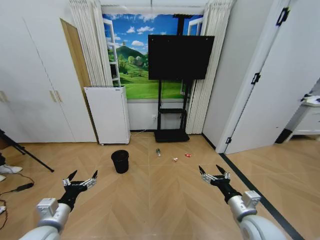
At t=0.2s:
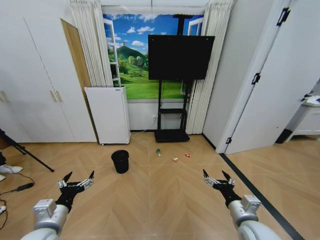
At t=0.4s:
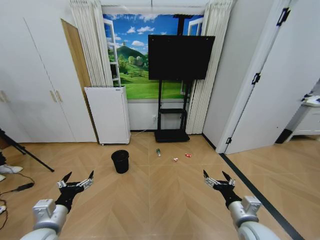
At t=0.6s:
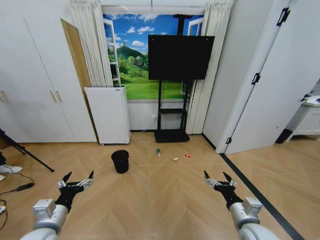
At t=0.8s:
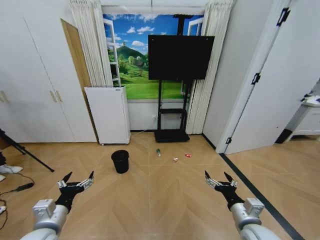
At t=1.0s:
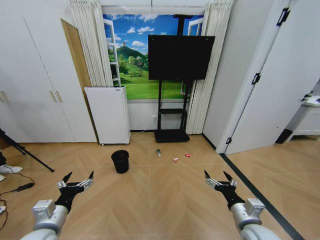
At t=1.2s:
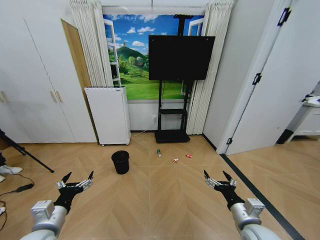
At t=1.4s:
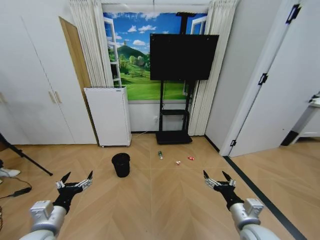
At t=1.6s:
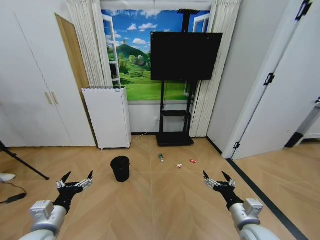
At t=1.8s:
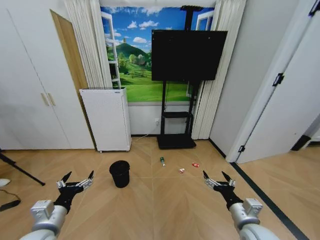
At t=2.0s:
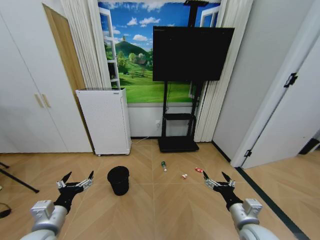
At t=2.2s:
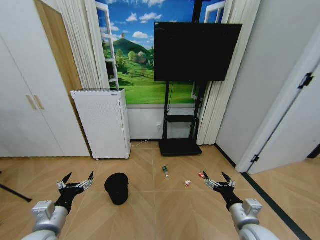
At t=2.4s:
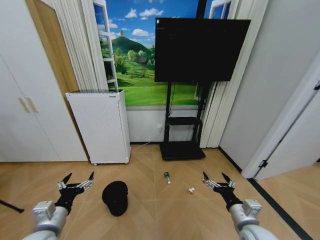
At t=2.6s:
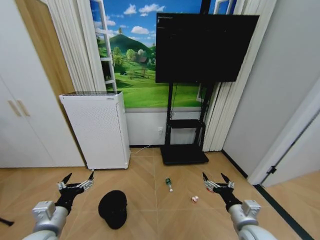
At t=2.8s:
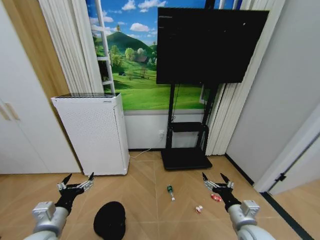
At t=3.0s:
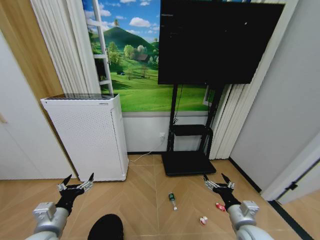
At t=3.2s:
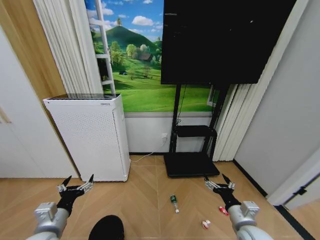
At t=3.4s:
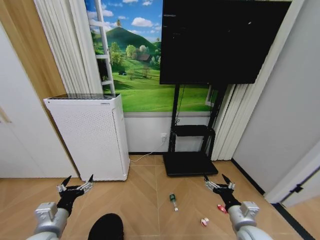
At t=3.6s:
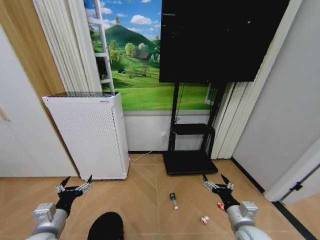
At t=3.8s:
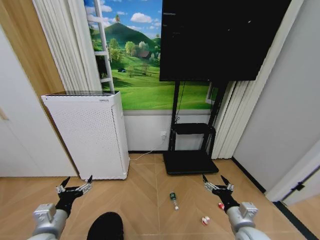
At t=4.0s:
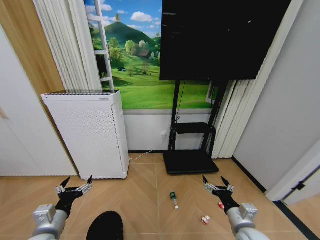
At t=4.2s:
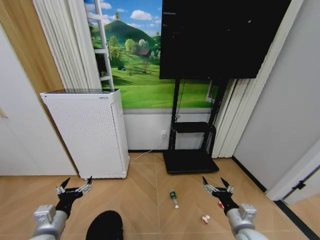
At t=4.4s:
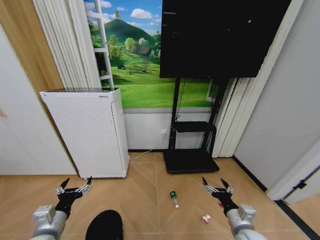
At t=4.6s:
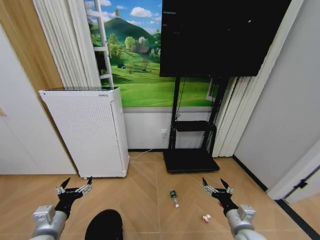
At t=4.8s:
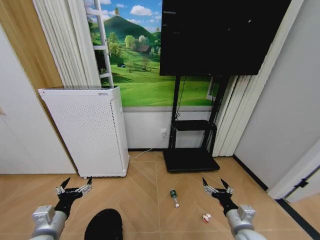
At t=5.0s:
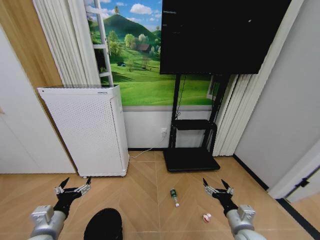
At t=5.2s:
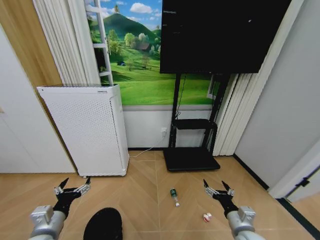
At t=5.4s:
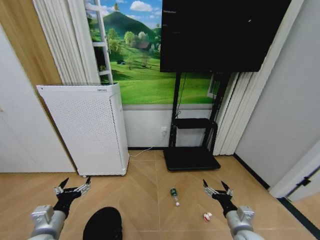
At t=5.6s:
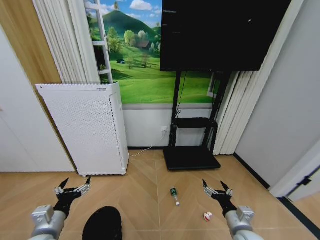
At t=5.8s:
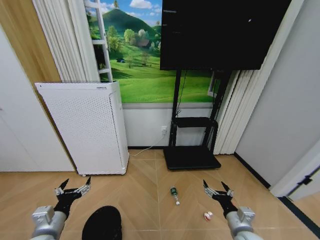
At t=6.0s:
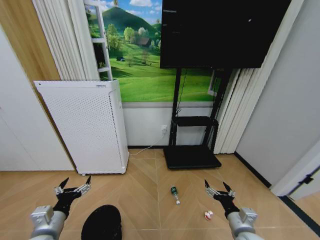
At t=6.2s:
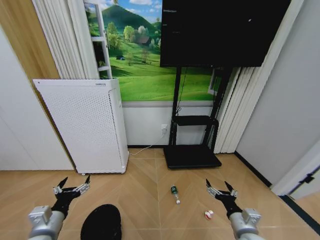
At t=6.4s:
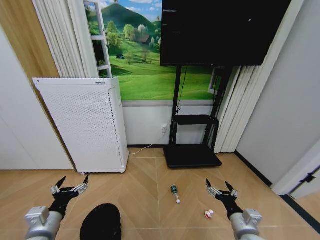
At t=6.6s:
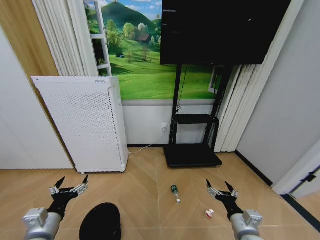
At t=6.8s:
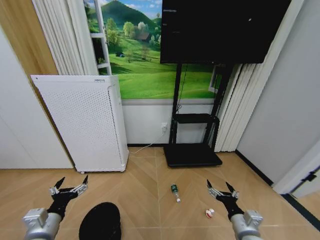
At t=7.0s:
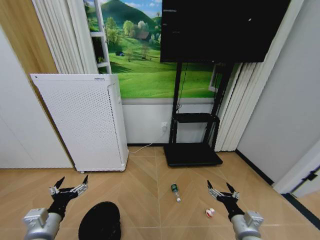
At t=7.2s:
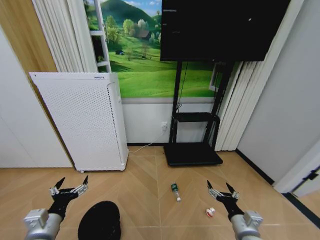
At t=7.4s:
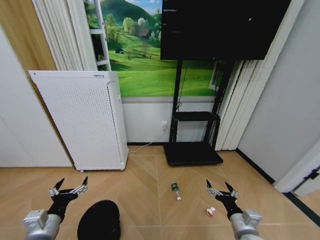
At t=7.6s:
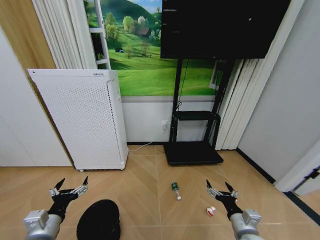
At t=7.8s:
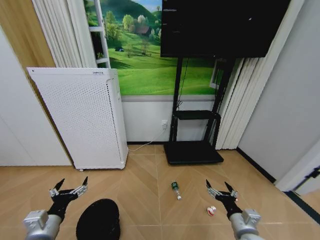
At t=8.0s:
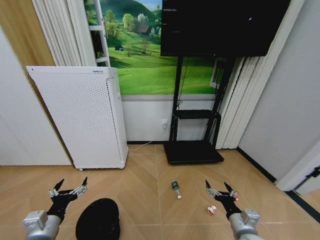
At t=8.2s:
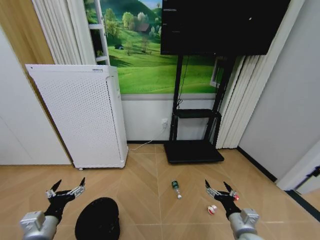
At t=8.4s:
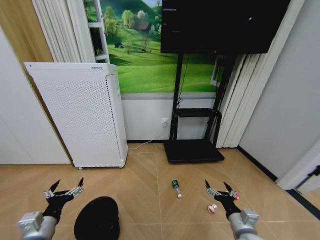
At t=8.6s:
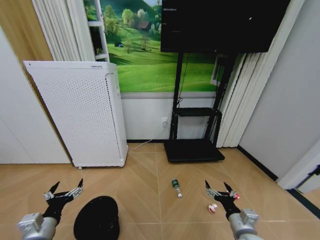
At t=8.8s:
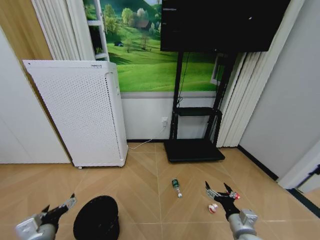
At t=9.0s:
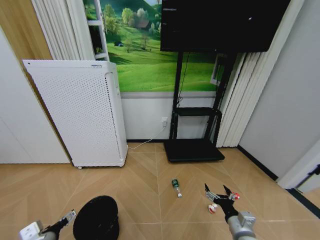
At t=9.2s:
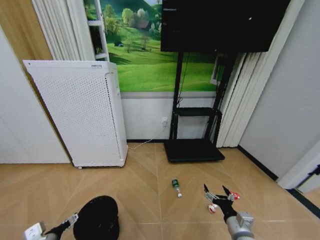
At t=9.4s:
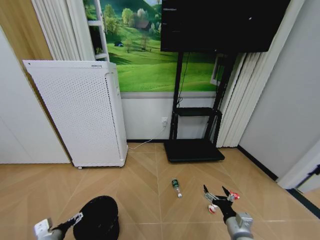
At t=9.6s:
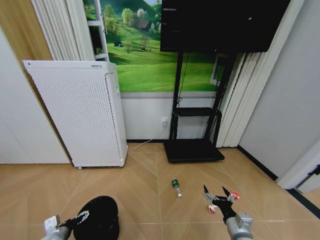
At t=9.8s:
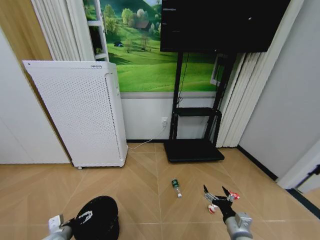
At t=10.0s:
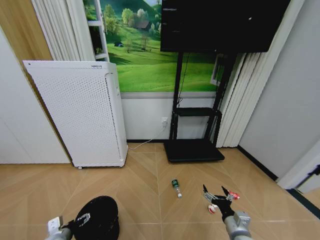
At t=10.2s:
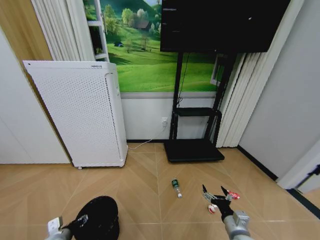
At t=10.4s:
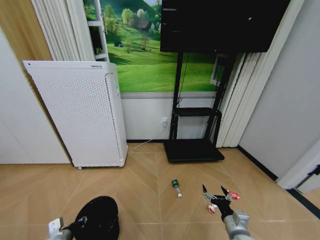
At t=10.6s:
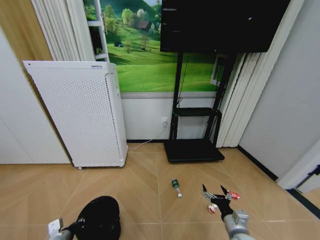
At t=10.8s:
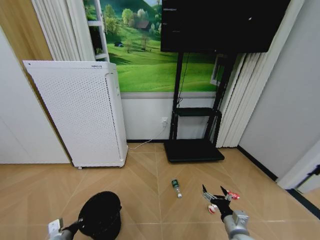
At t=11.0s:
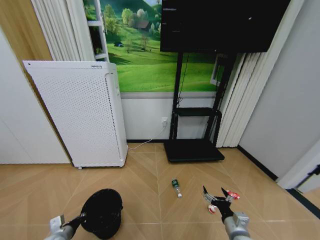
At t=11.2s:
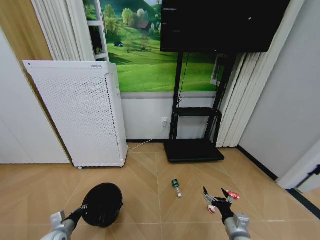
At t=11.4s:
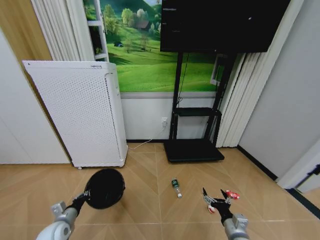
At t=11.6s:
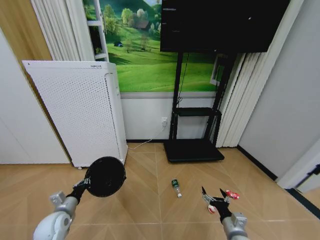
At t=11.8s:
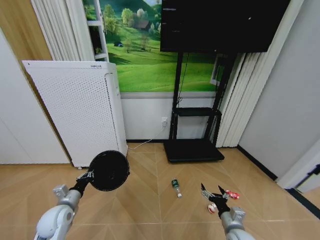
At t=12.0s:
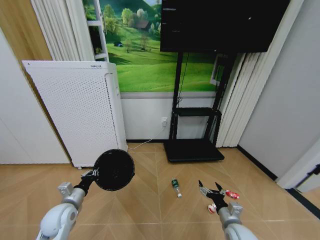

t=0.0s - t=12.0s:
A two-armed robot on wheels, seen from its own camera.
Task of the whole recording: Pick up the trash bin and place the garbage on the floor into it.
t=4.4s - t=7.6s: The grippers move only a little.
t=9.0s - t=10.4s: The left gripper travels downward by roughly 10 cm, and closes its fingers.
t=10.4s - t=12.0s: The left gripper travels upward and forward by some 10 cm, and closes.

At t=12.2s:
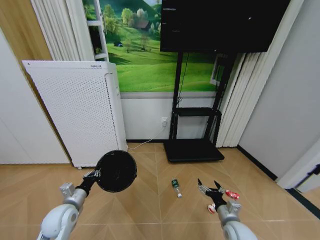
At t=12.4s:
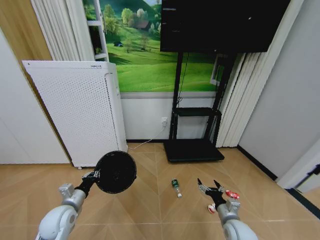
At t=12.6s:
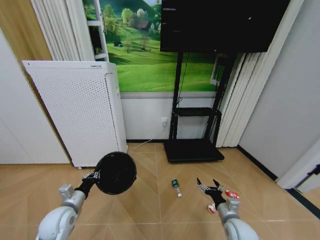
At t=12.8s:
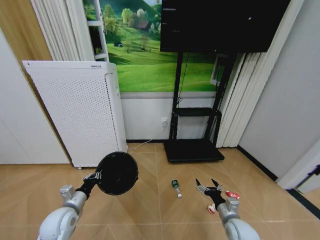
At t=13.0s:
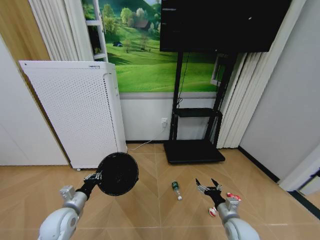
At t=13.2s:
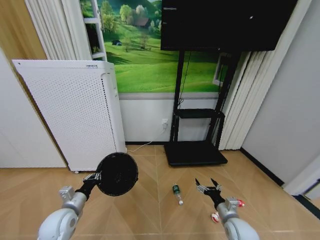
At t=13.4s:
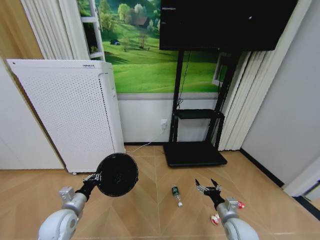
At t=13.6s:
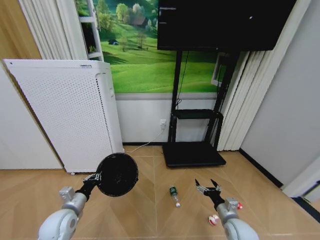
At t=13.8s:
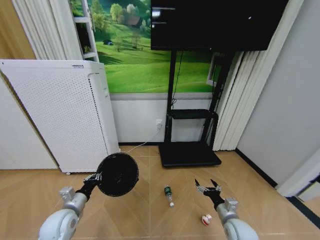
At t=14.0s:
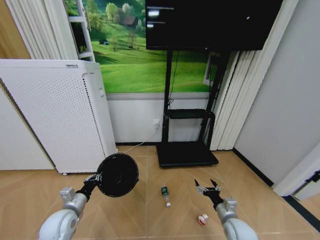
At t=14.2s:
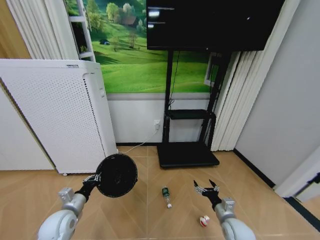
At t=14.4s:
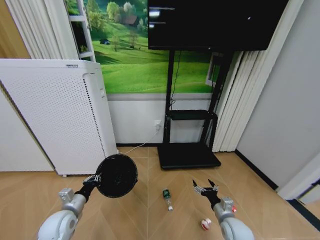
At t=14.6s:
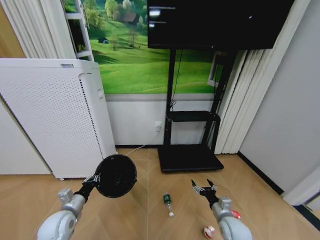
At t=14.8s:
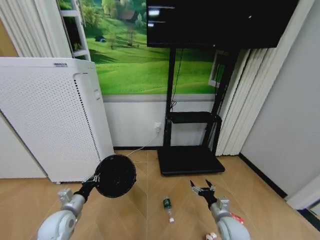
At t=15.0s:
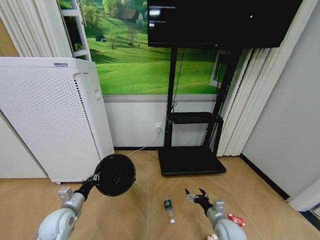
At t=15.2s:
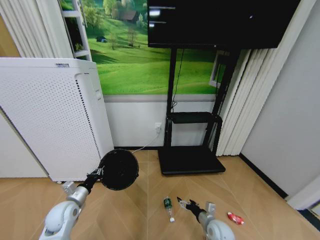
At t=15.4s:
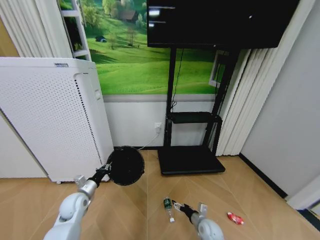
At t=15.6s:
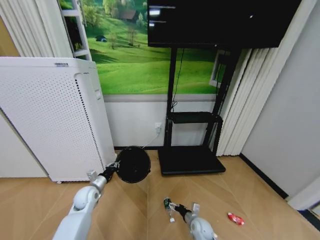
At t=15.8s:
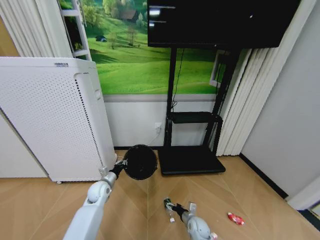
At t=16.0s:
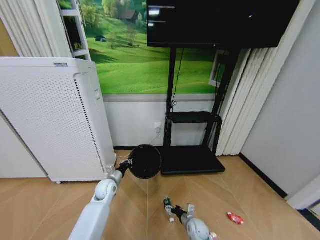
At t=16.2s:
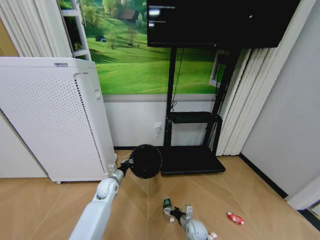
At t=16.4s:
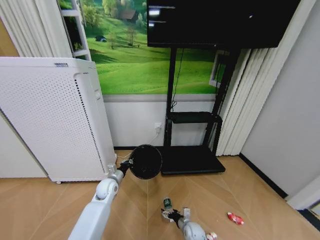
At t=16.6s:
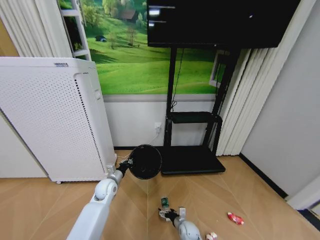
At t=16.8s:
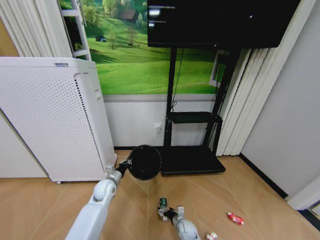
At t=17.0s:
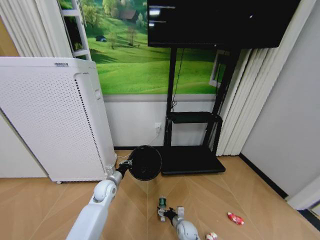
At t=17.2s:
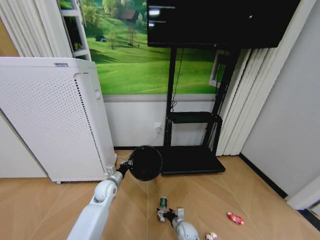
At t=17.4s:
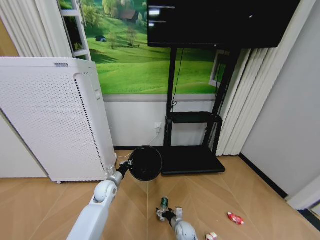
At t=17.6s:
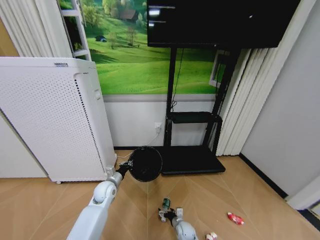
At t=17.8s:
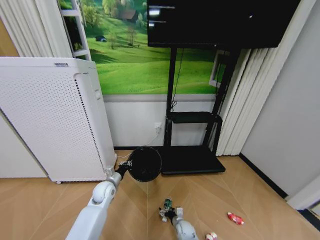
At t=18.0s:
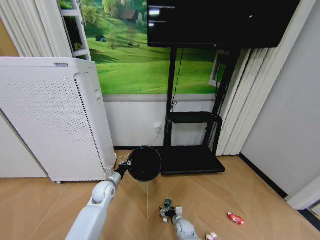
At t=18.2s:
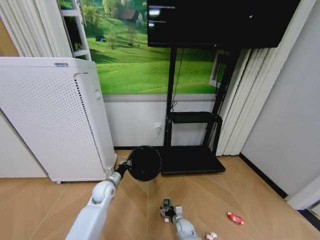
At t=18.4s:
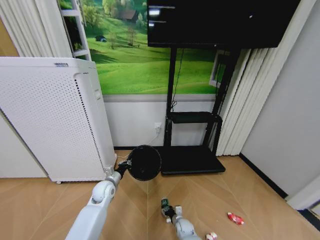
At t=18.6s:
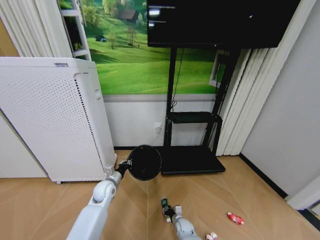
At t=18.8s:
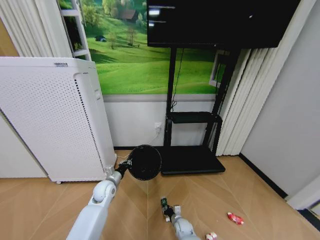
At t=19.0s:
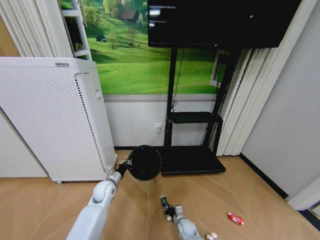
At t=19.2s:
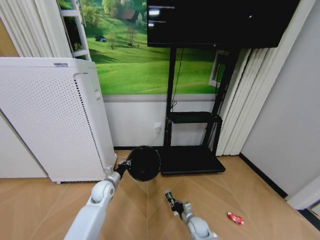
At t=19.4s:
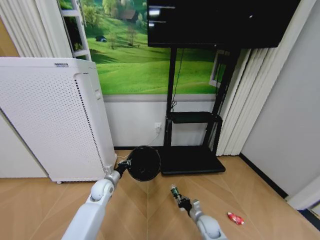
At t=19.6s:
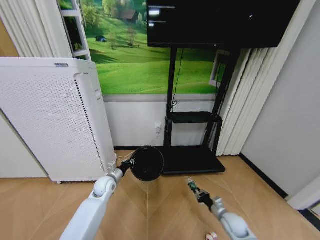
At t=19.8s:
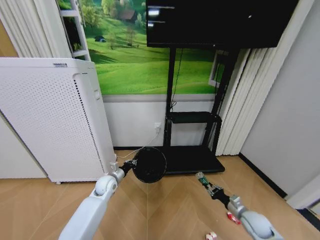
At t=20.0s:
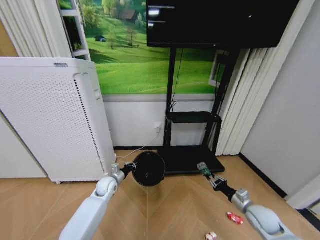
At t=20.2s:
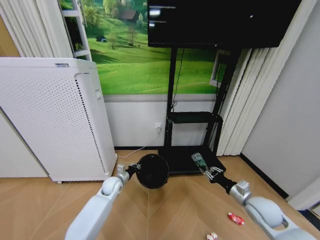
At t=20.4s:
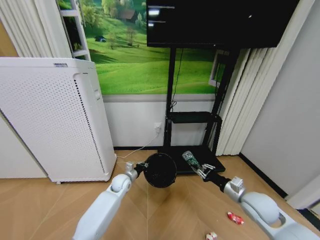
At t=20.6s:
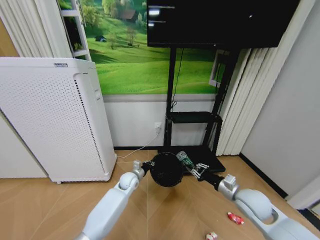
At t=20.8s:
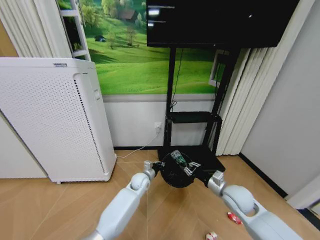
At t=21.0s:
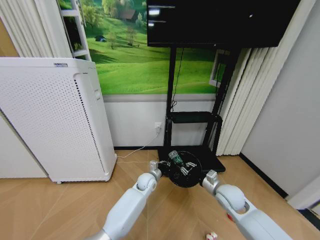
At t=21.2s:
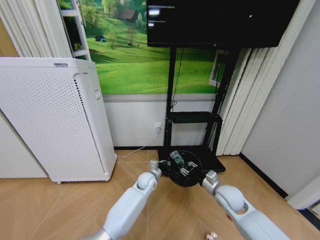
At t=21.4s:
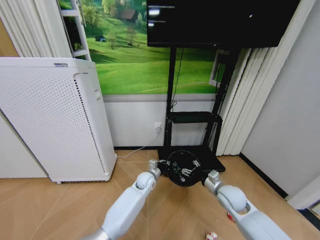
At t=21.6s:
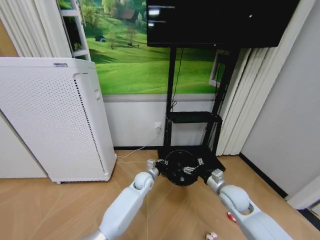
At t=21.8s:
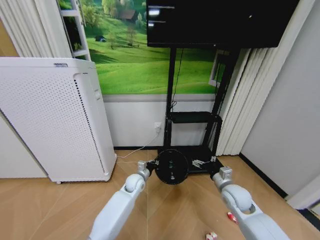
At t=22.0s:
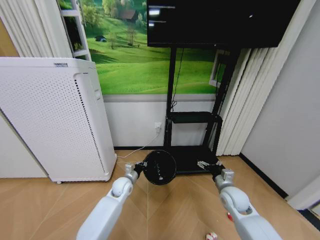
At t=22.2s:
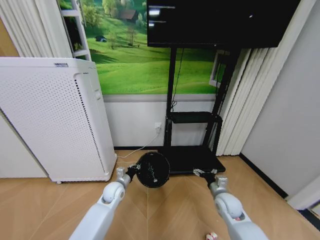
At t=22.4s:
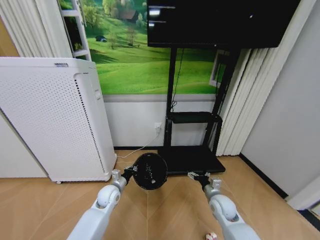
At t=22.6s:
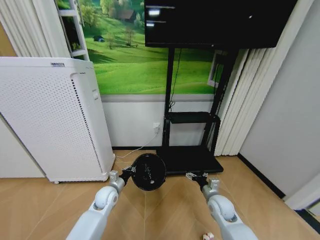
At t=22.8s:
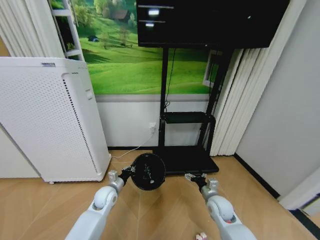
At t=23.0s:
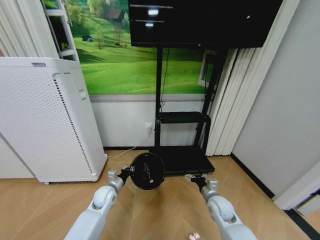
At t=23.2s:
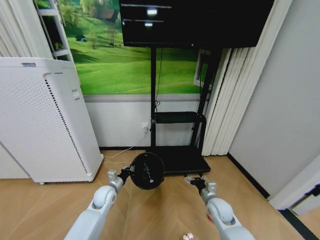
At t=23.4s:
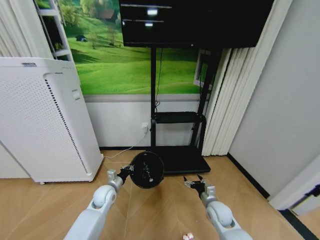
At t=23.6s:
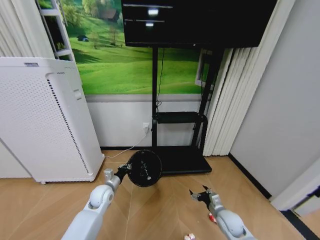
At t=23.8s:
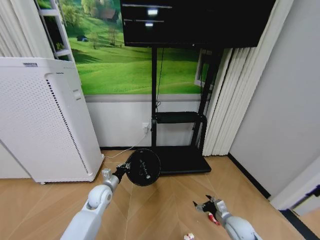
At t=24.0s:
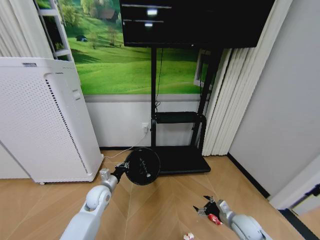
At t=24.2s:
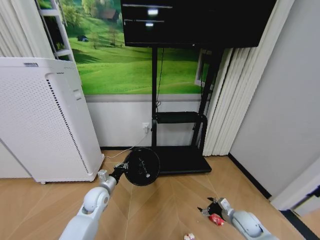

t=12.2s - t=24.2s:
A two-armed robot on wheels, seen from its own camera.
Task of the whole recording: Pick up the trash bin and place the garbage on the floor into it.
t=13.8s - t=15.2s: The right gripper moves downward, some 5 cm.
t=15.2s - t=16.6s: The left gripper goes roughly 15 cm to the right and forward; the right gripper heads downward and to the left, covering approximately 15 cm.
t=16.6s - t=18.2s: The grippers stay close to where they were, moving slightly.
t=18.2s - t=19.8s: The right gripper goes about 30 cm to the right and upward, and closes up.
t=19.8s - t=21.2s: The right gripper travels upward and to the left by some 20 cm, while the left gripper is displaced to the right by approximately 20 cm.
t=21.2s - t=22.6s: The left gripper moves to the left, about 20 cm, while the right gripper shifts about 5 cm downward, and opens.
t=22.6s - t=24.2s: The right gripper moves to the right and downward, approximately 15 cm.
